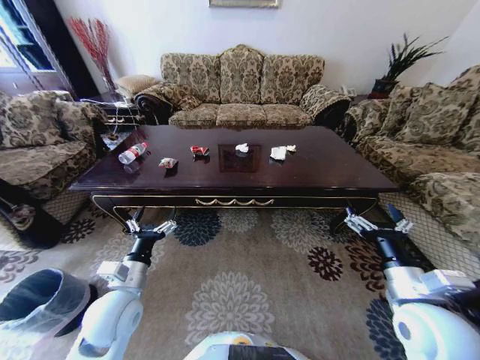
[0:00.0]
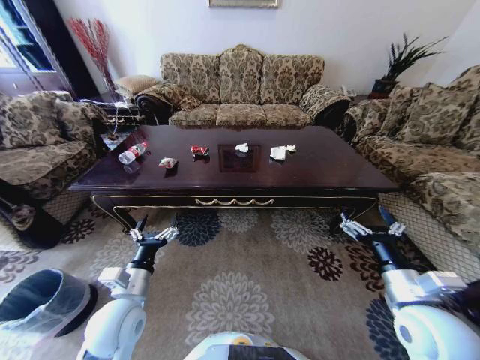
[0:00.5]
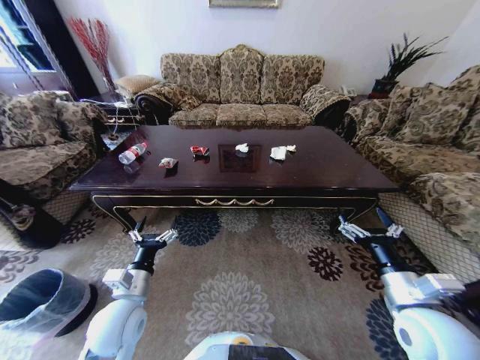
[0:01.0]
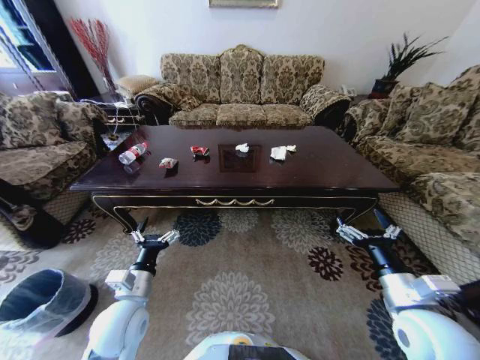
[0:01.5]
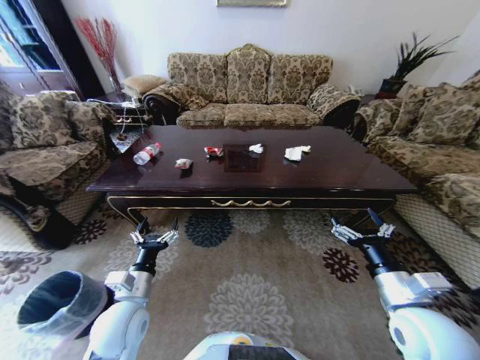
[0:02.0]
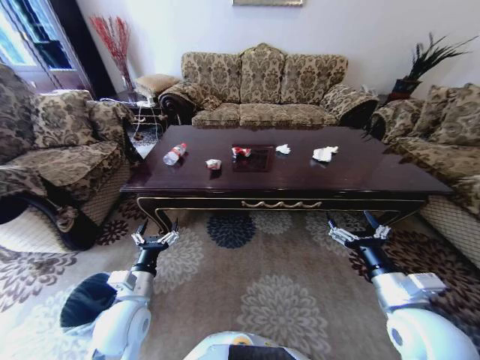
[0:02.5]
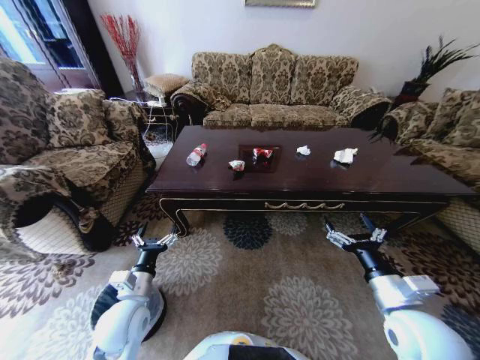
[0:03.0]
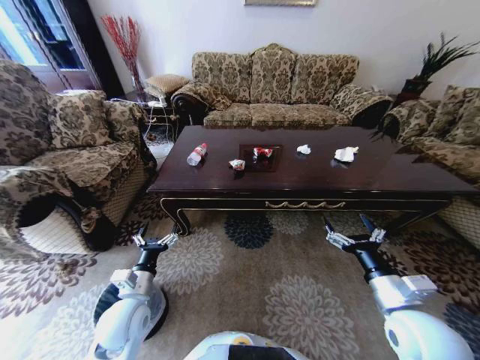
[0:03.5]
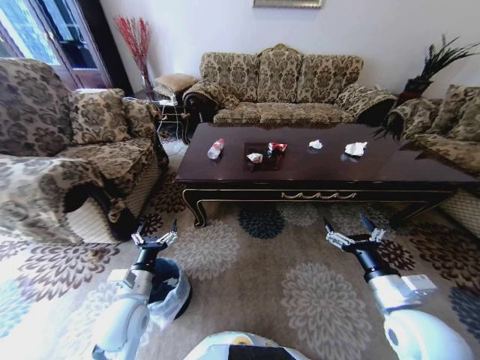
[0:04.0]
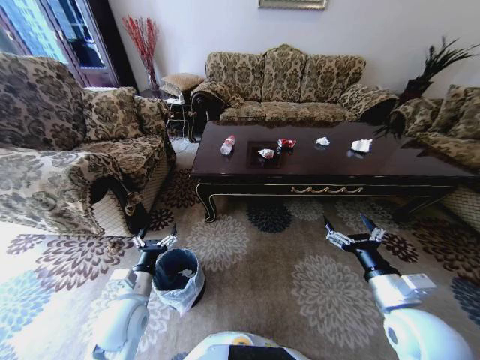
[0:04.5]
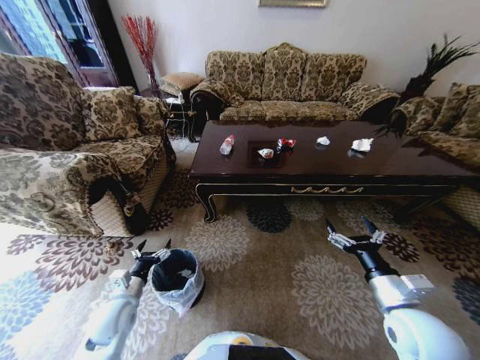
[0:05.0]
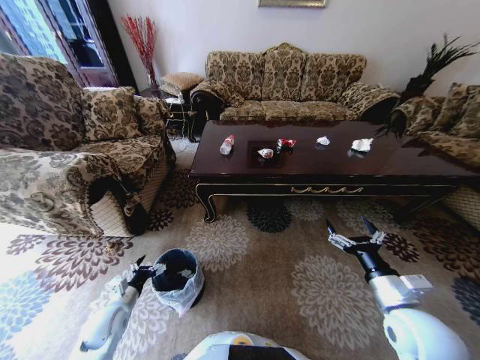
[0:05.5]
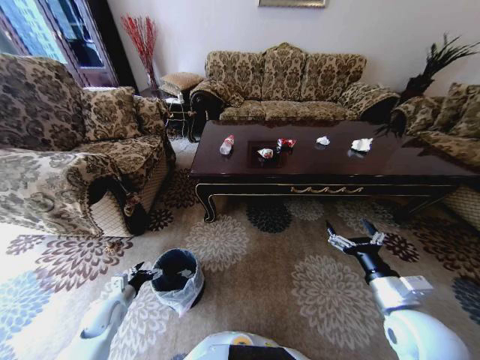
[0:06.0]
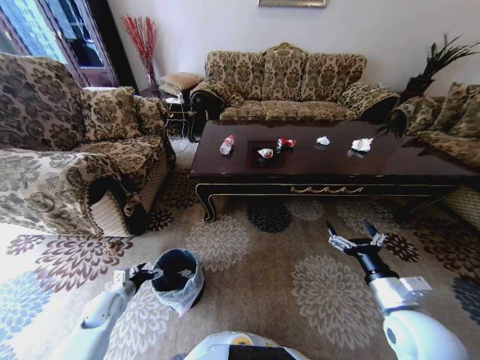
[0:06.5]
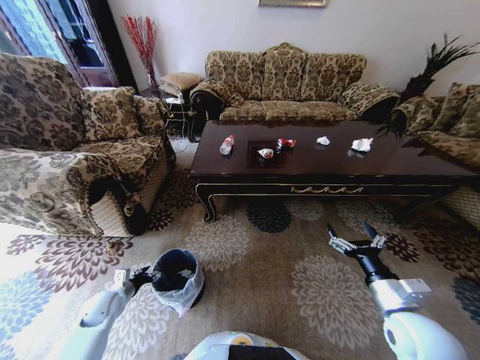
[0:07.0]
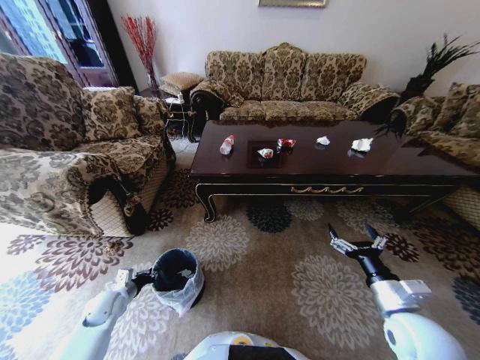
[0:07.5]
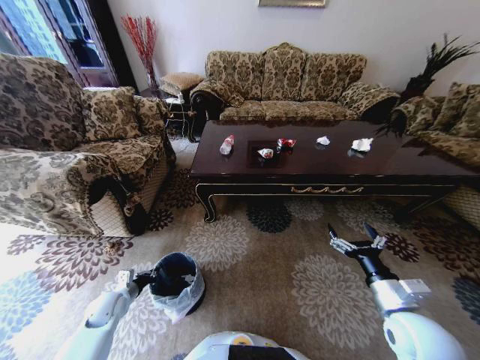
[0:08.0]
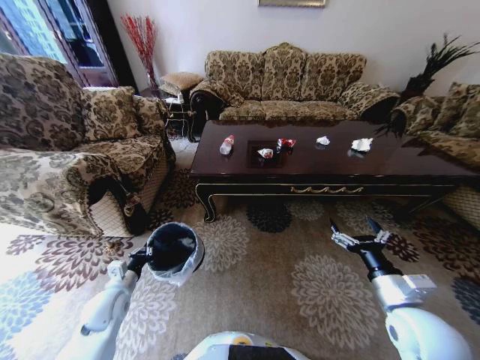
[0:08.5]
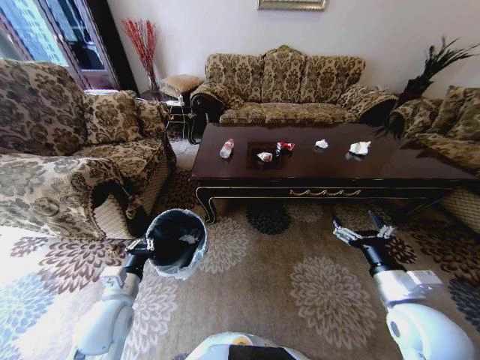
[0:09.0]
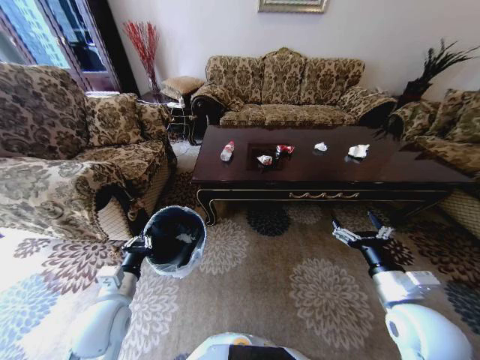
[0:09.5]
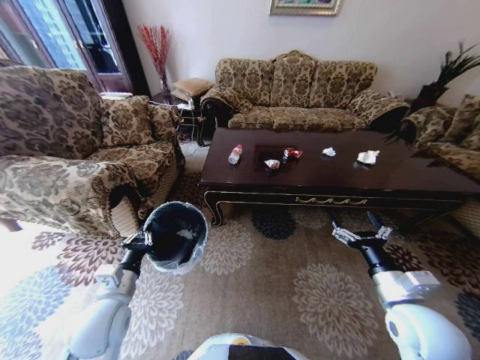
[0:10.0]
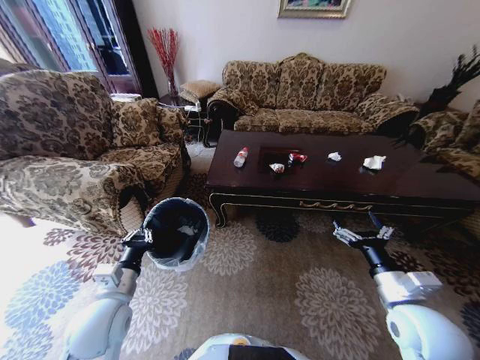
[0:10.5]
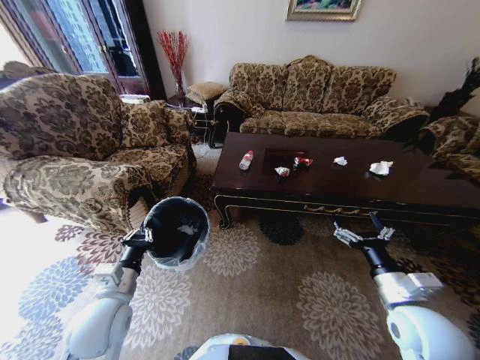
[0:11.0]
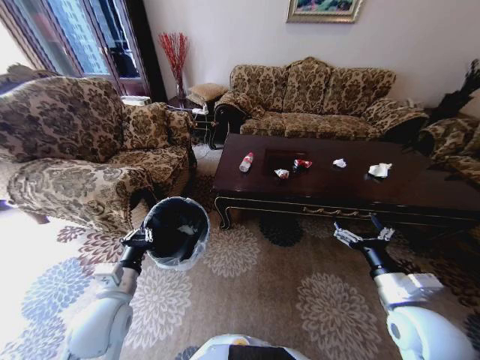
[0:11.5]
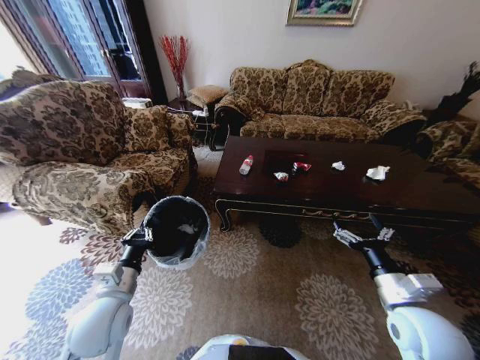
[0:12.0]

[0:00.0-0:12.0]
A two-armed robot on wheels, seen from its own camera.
Task of the whole recording: Move to the front of the table and place the trash on the table into the trash bin.
0:04.0 to 0:06.0: The left gripper shifts roughly 20 cm to the left and downward.
0:06.0 to 0:08.0: The left gripper closes up.
0:08.0 to 0:10.0: The left gripper shifts about 20 cm upward and to the right.

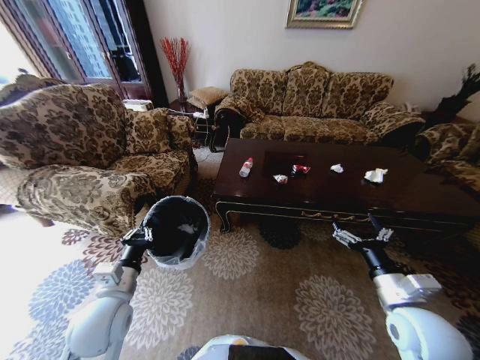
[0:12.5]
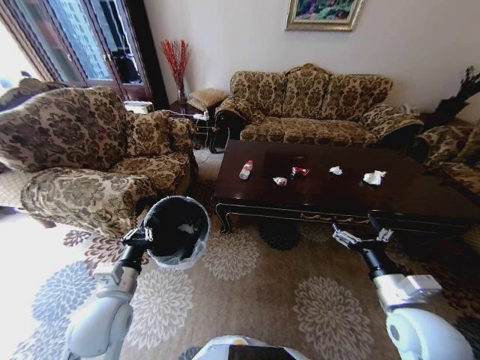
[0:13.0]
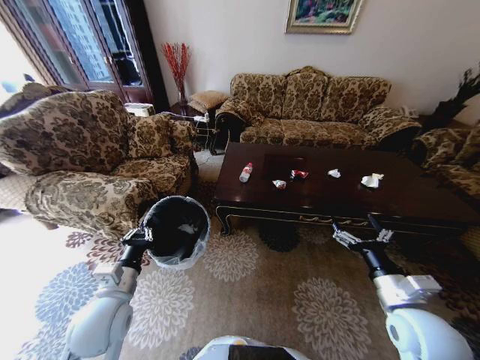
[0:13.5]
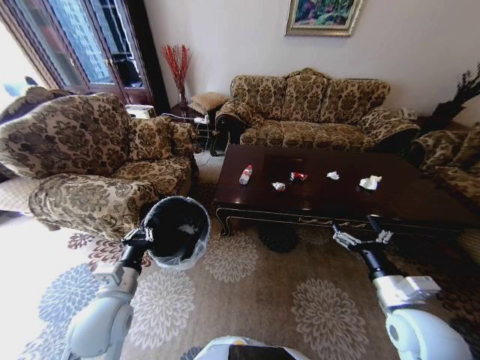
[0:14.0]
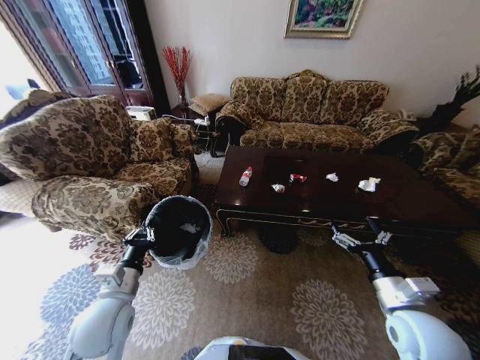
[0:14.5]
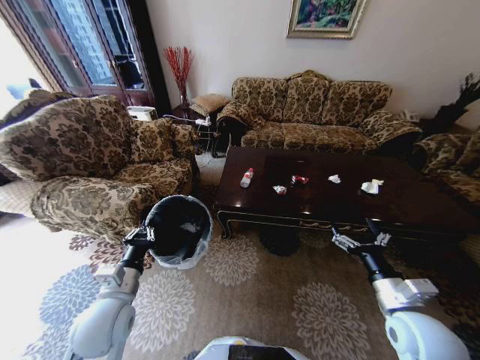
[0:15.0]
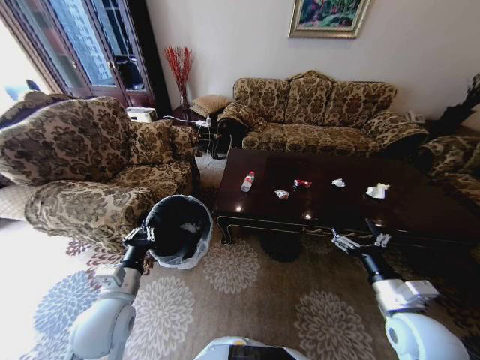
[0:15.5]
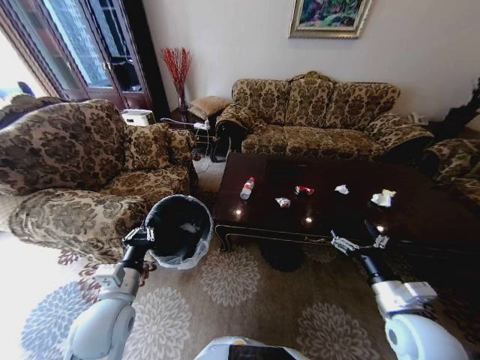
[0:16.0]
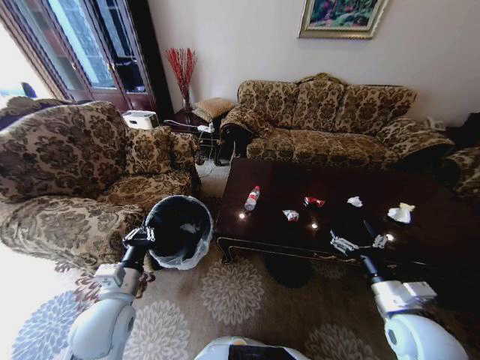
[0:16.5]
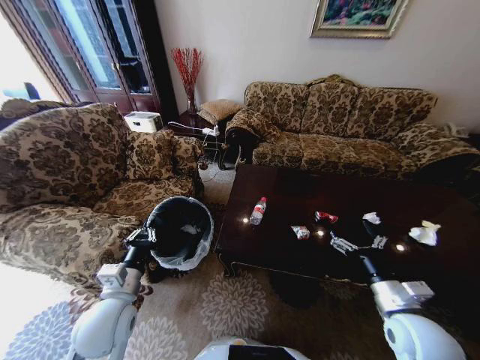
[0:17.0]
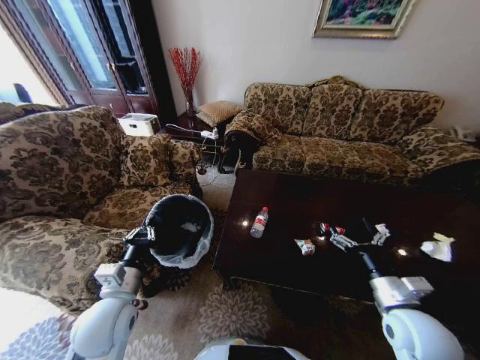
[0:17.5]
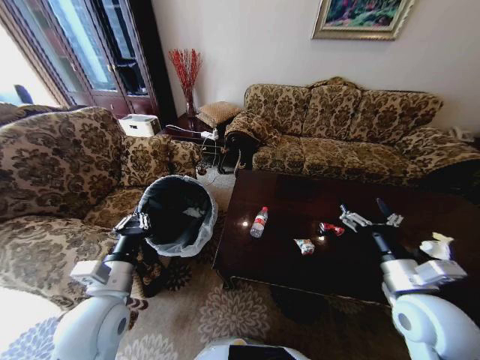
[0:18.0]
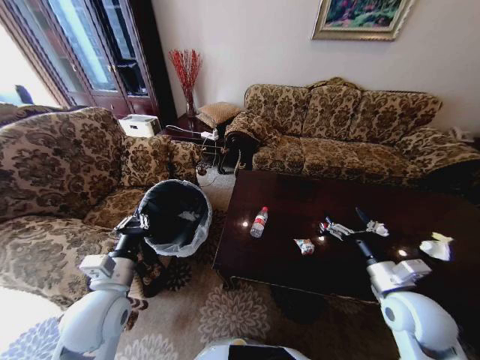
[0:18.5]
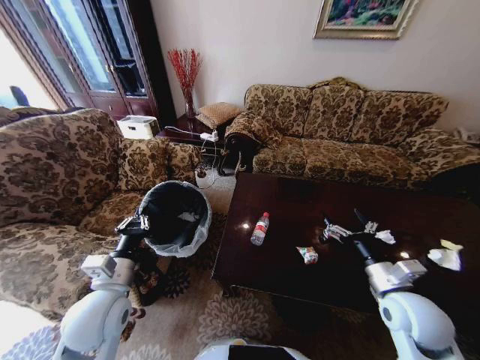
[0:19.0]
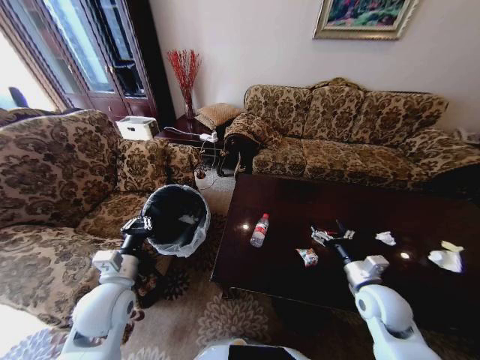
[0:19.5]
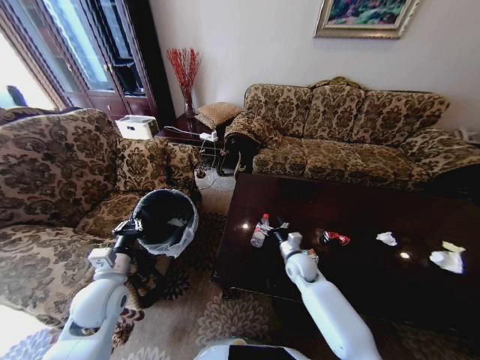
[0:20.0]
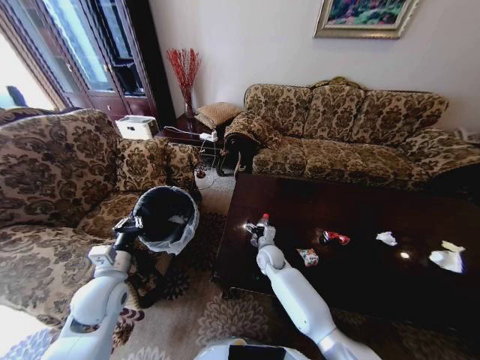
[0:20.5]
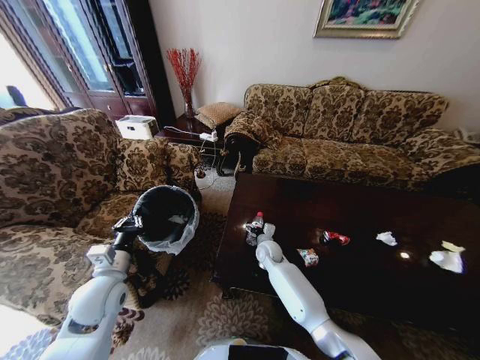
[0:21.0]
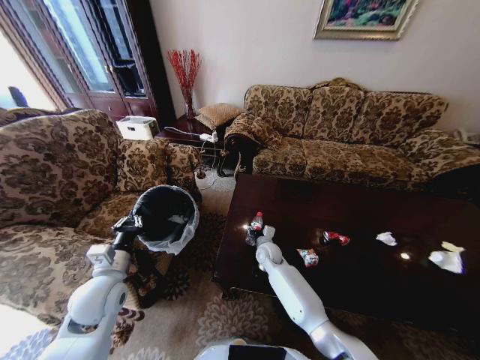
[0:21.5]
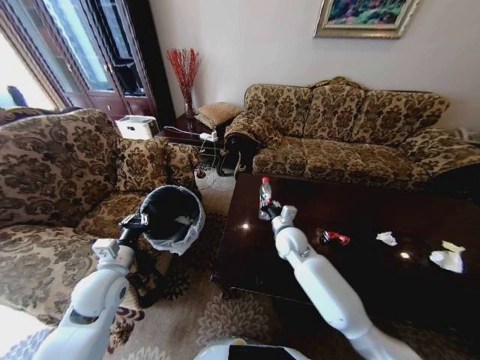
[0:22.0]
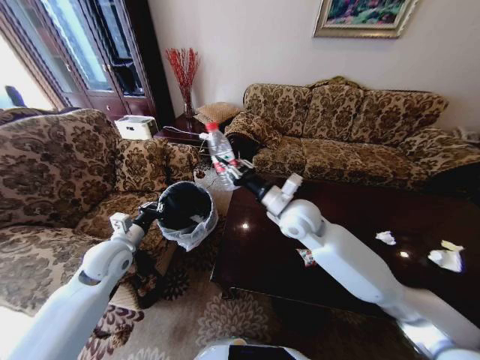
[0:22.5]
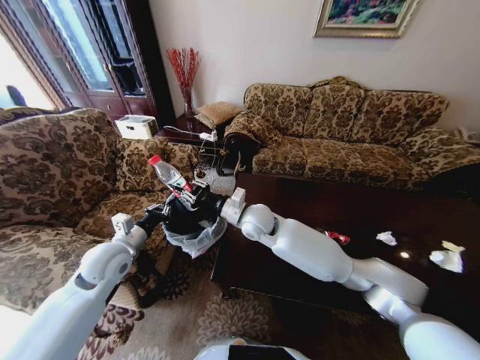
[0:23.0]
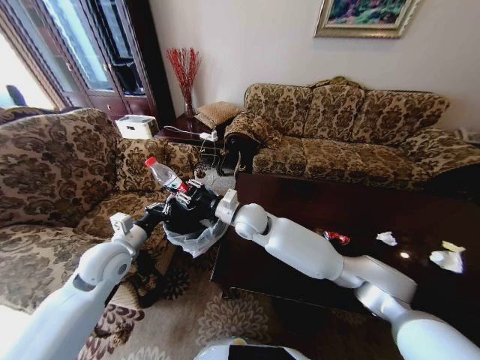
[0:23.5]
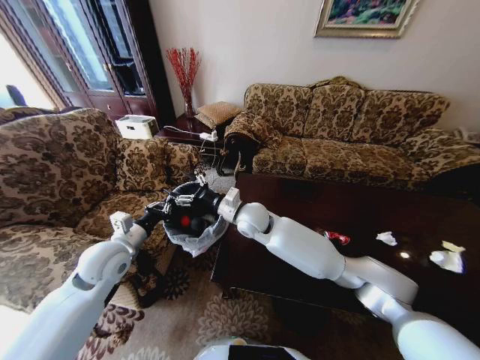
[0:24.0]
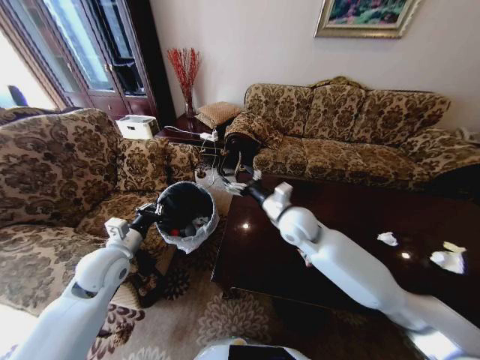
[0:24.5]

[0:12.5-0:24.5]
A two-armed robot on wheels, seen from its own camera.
Task of the whole recording: Move to the front of the table and place the trash on the table into the trash bin.
0:18.5 to 0:20.5: The right gripper goes approximately 35 cm to the left, forward and downward. The left gripper moves about 10 cm.
0:20.5 to 0:22.5: The left gripper is displaced forward by roughly 10 cm, while the right gripper moves upward, some 25 cm, and closes.
0:22.5 to 0:24.5: The right gripper goes to the left and returns, some 15 cm each way, and opens its fingers.

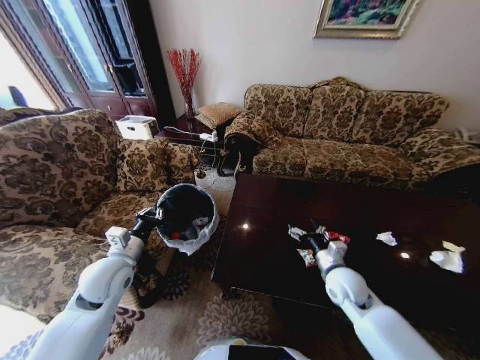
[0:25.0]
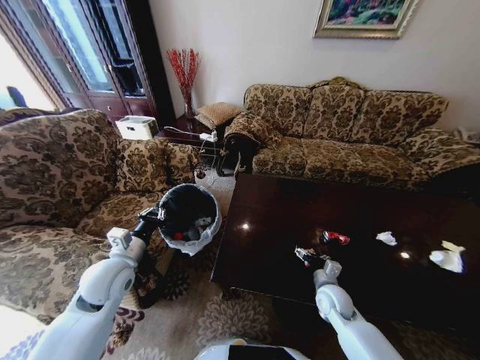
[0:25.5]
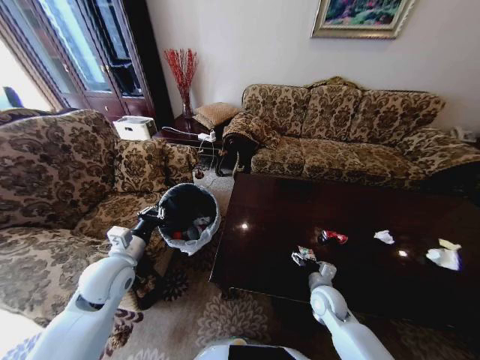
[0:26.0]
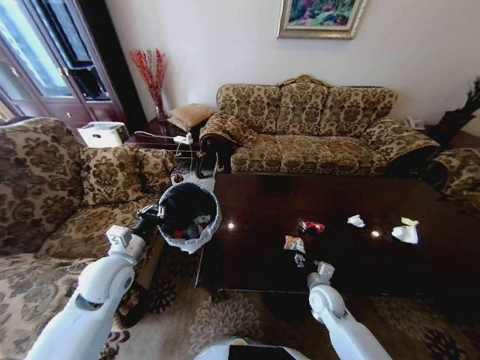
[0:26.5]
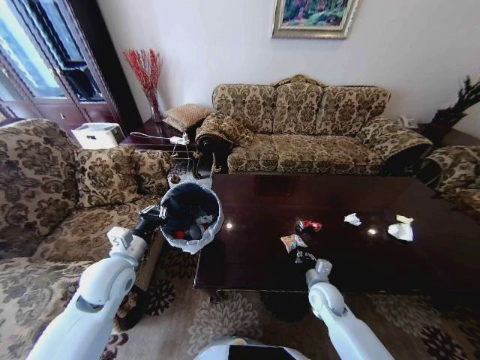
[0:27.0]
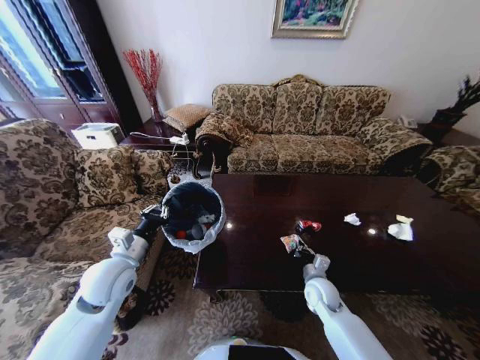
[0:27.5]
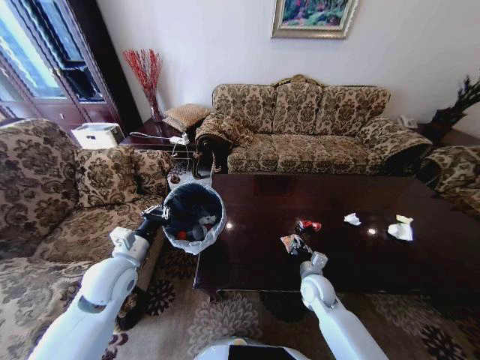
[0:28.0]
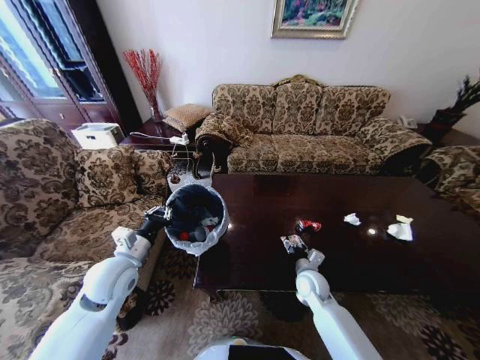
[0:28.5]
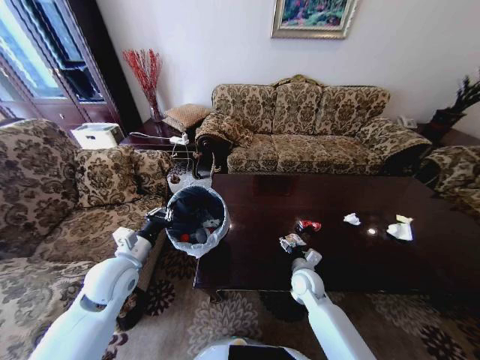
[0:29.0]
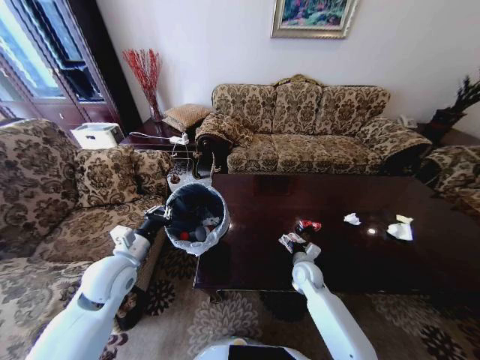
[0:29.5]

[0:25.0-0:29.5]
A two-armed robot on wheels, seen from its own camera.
Task of the whole recording: Move to the front of the table and place the trash on the table into the trash bin.
0:25.0 to 0:27.0: The right gripper shifts approximately 10 cm downward, and closes.
0:27.0 to 0:29.5: The right gripper travels forward by some 5 cm, and opens up.
